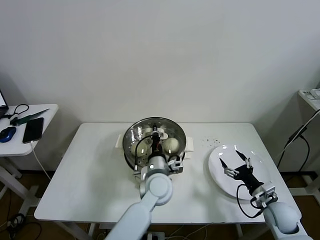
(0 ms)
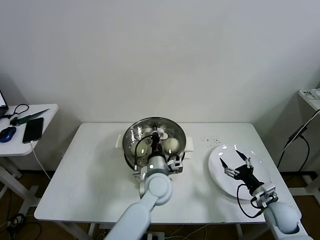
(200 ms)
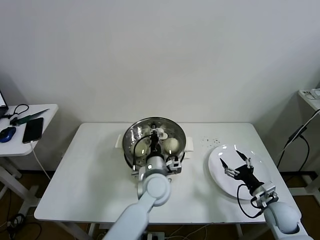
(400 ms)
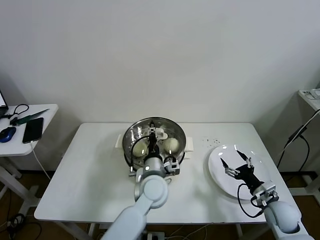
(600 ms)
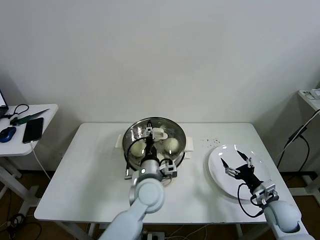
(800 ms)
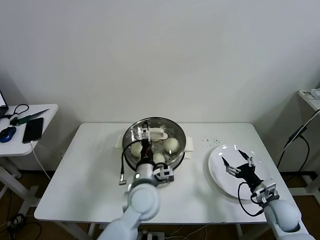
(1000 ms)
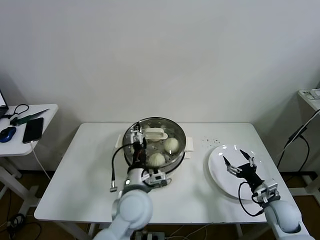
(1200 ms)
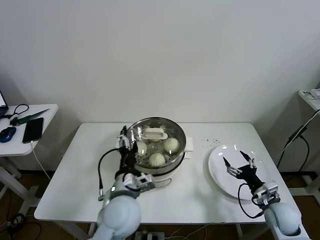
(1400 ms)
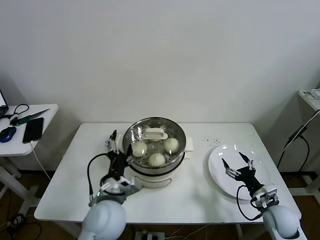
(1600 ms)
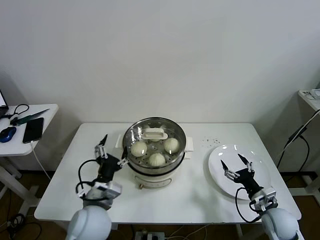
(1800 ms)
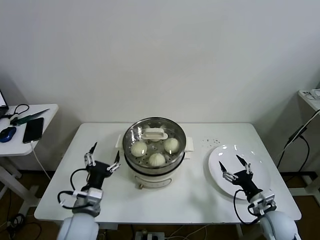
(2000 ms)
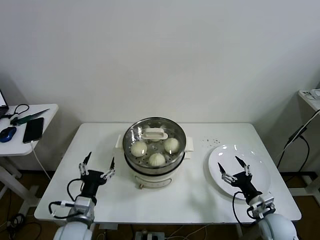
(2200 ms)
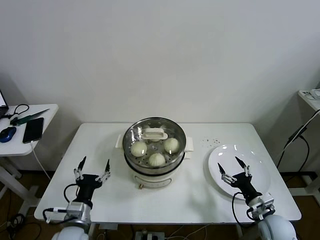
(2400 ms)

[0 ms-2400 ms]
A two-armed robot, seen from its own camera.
Task of the whole recording: take steamed baozi put them in steamer then cover it.
0 ms to 1200 ms: The left gripper goes approximately 10 cm backward and to the left, and opens its fingers.
1200 ms to 2400 ms: The right gripper changes place by roughly 5 cm. The left gripper is displaced to the left and downward by approximately 20 cm.
